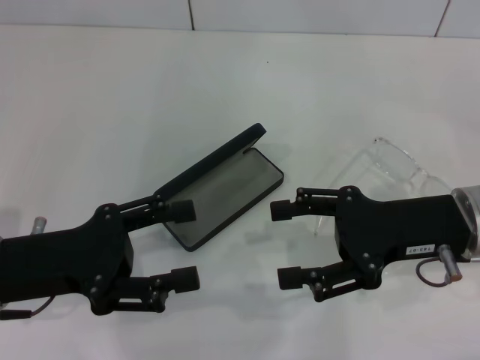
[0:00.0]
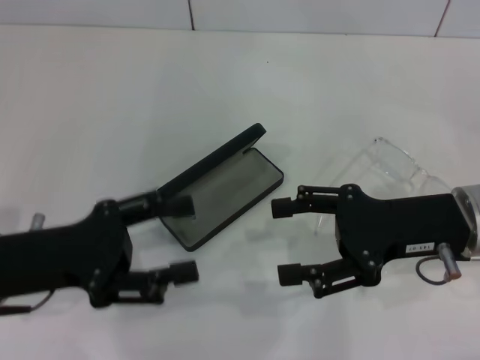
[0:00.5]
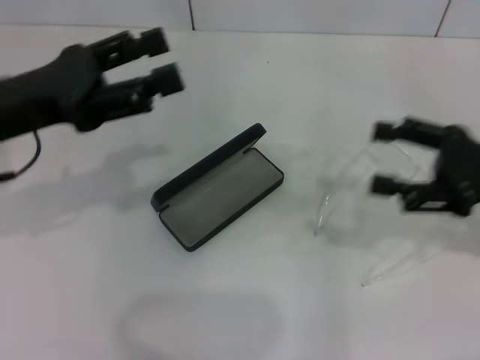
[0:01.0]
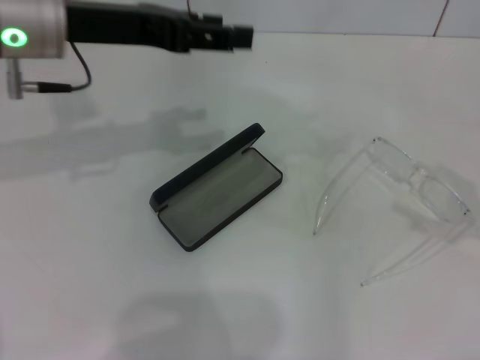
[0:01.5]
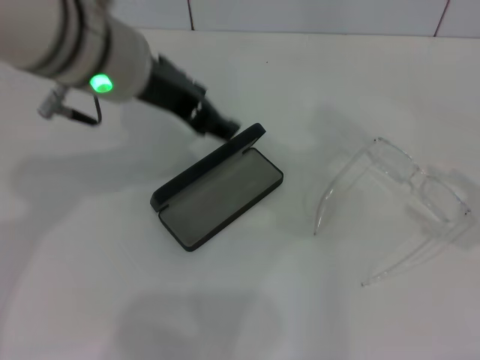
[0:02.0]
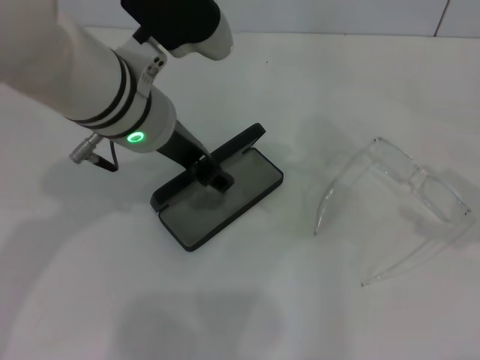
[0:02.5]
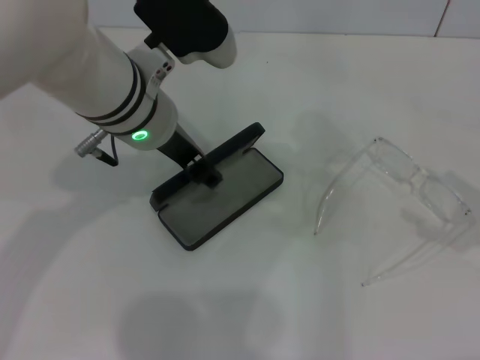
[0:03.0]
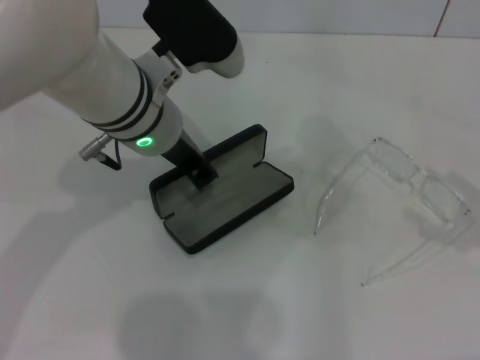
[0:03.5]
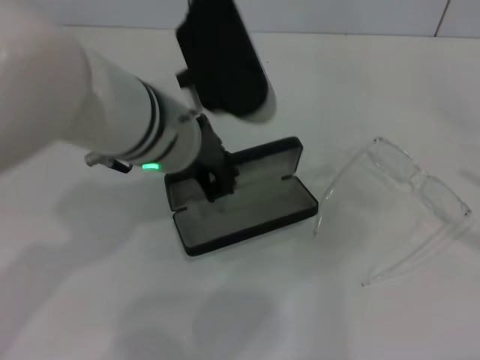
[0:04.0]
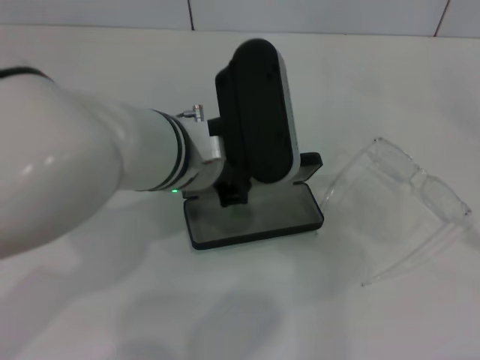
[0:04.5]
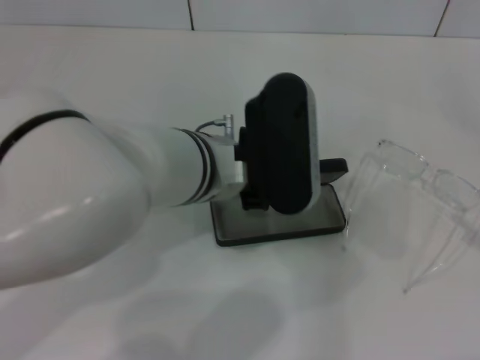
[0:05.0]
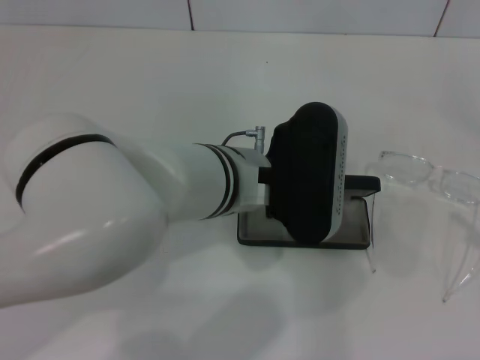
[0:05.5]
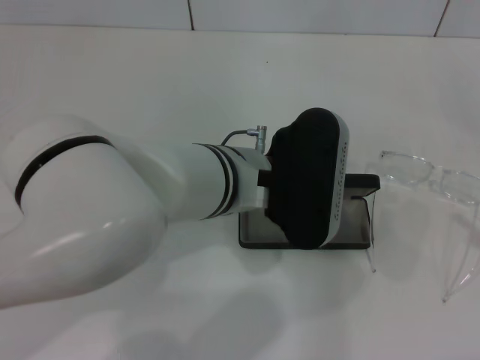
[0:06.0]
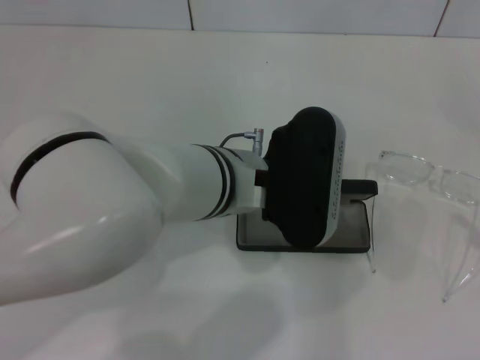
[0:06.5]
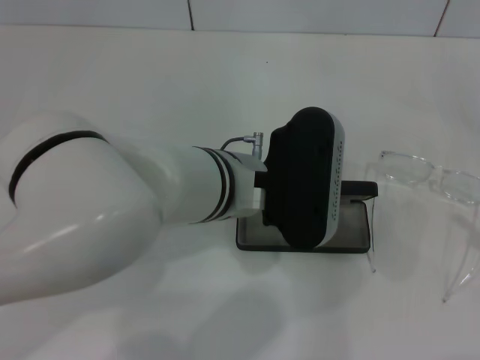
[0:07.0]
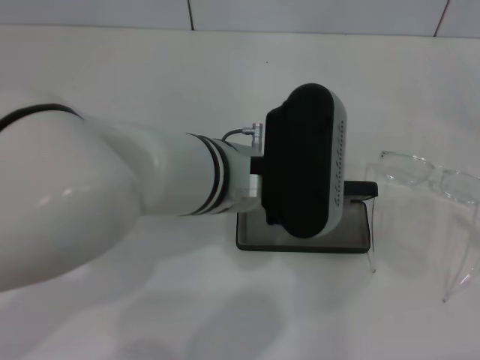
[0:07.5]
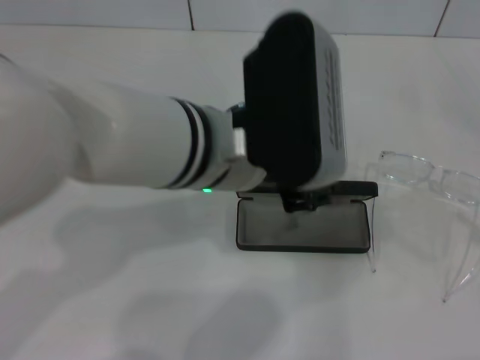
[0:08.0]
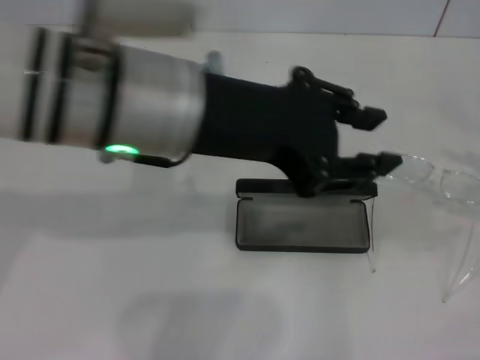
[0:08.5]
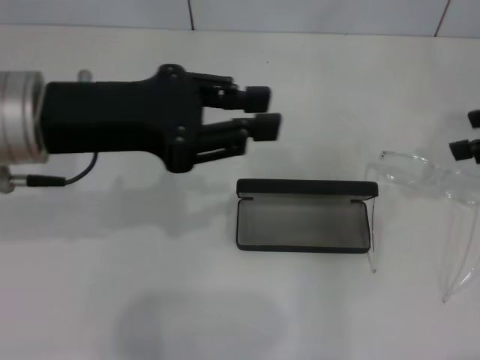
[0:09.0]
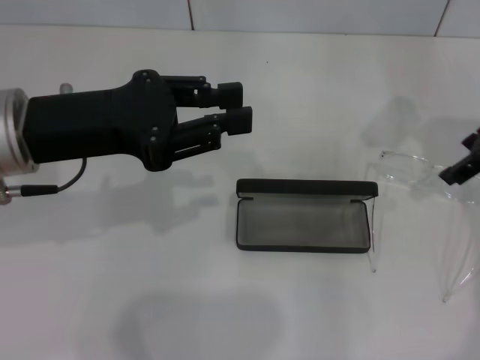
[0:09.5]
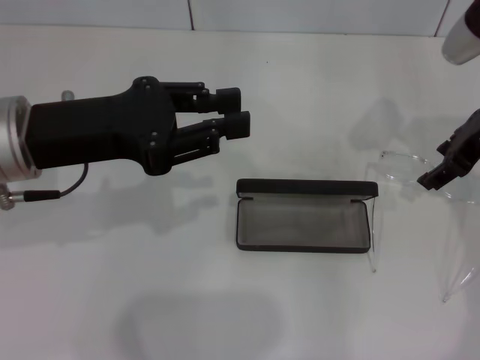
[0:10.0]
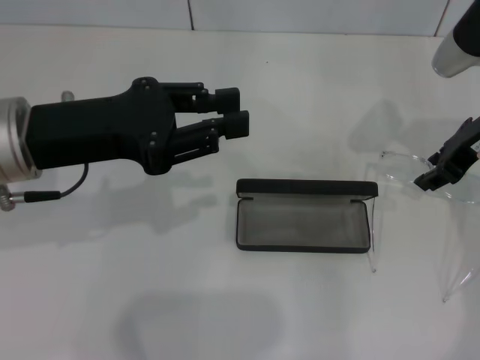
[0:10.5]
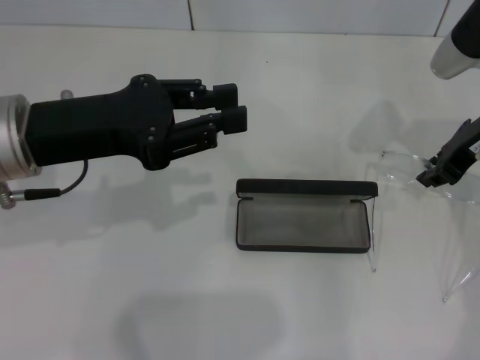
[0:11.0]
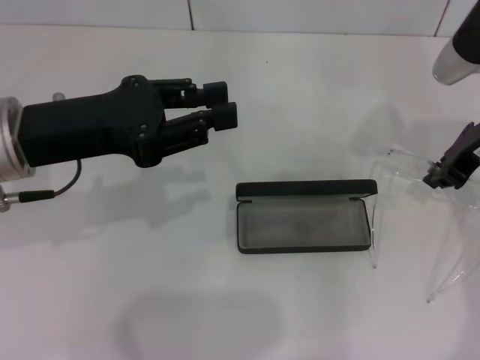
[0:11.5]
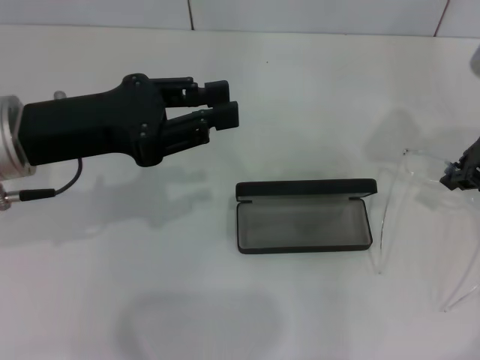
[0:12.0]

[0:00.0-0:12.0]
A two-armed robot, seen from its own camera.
Step, 0:00.0 to 0:03.5: Grab the glasses case with your left hand.
Step, 0:04.0 to 0:07.0: Place the glasses case in the center of the table with your left hand.
Step, 0:08.0 to 0:11.0: Grab the eyeglass frame with your right hand.
0:00.0 to 0:02.0: The left gripper heads upward, to the right and forward, covering some 20 cm. Meanwhile the right gripper shifts roughly 20 cm to the right.
0:02.0 to 0:04.0: The left gripper travels downward by approximately 5 cm, and closes.
0:04.0 to 0:06.0: The left gripper moves some 5 cm.
0:06.0 to 0:08.0: The left gripper heads upward, covering some 5 cm.
0:08.0 to 0:10.0: The left gripper is displaced to the left by about 15 cm, while the right gripper is displaced forward and to the left by roughly 30 cm.
0:10.0 to 0:12.0: The right gripper closes up.

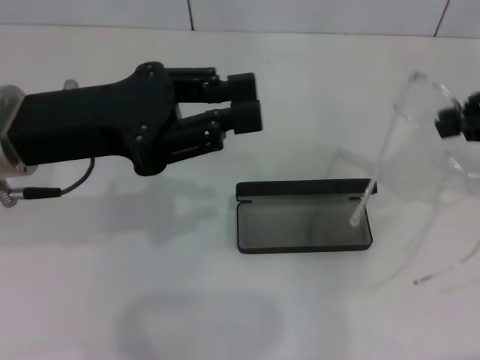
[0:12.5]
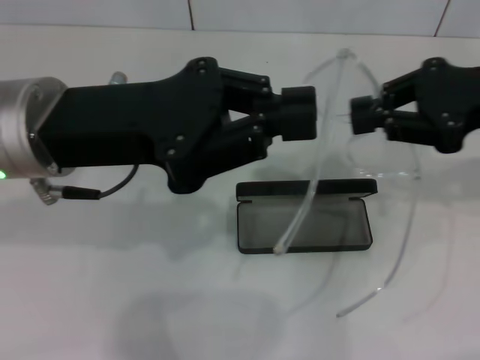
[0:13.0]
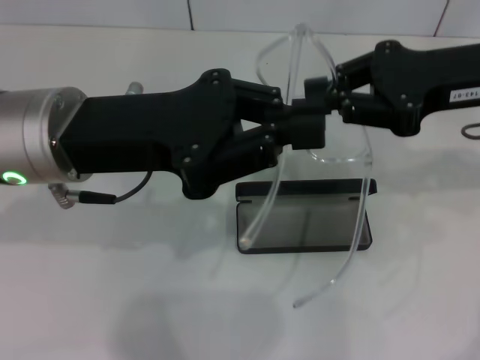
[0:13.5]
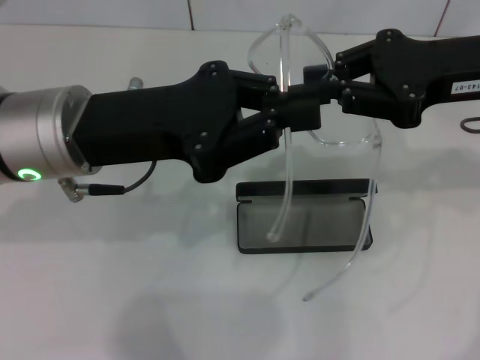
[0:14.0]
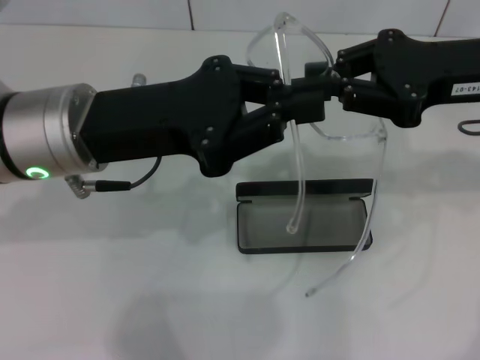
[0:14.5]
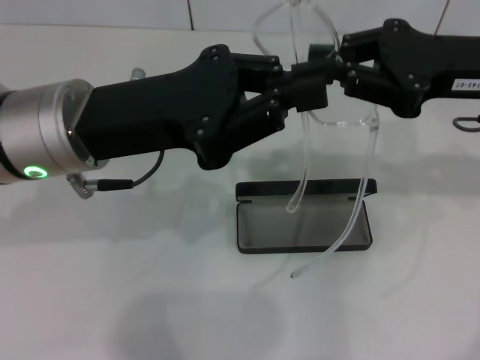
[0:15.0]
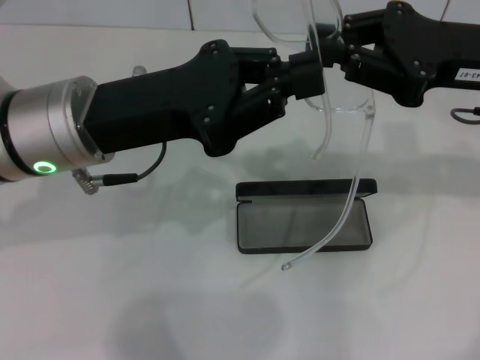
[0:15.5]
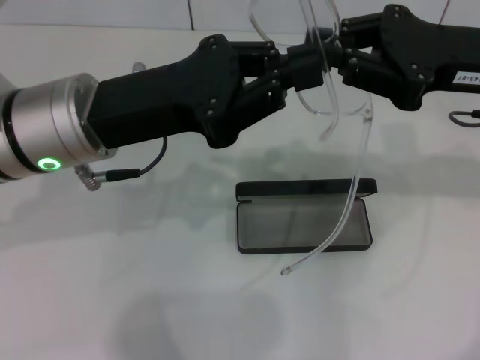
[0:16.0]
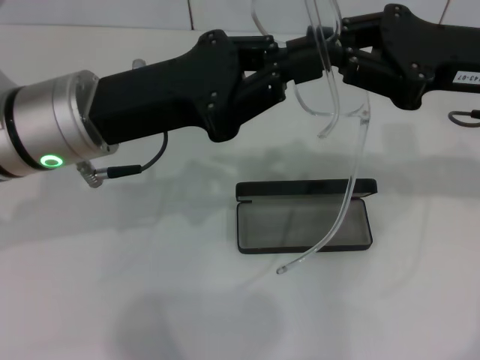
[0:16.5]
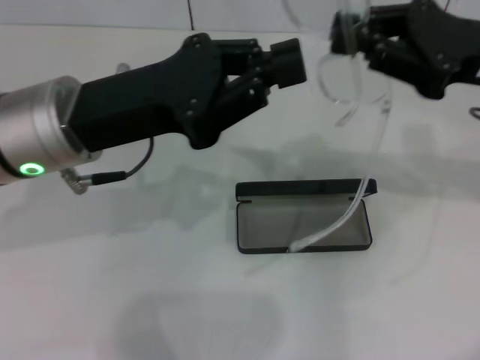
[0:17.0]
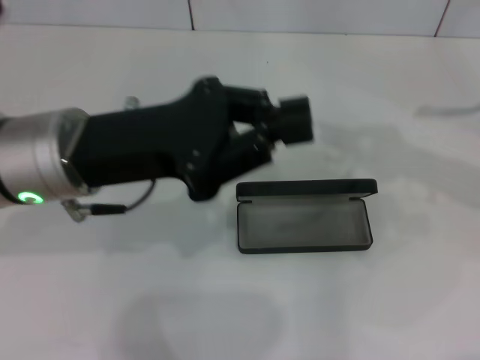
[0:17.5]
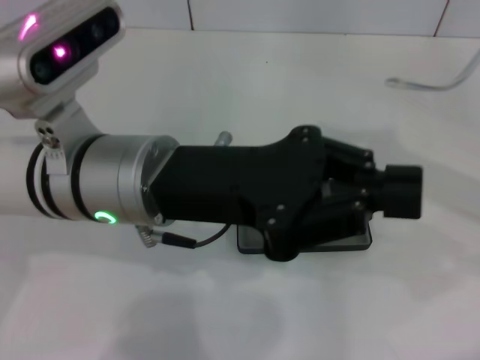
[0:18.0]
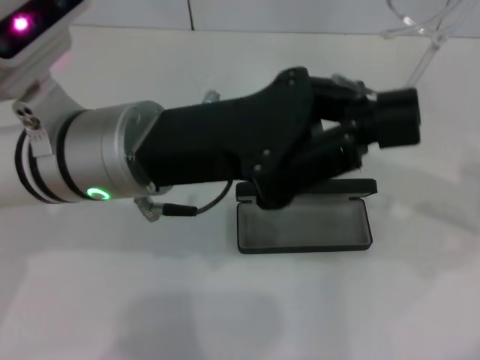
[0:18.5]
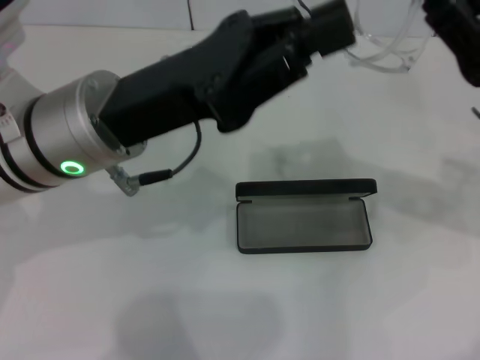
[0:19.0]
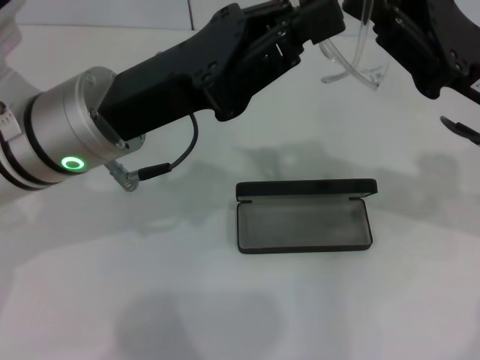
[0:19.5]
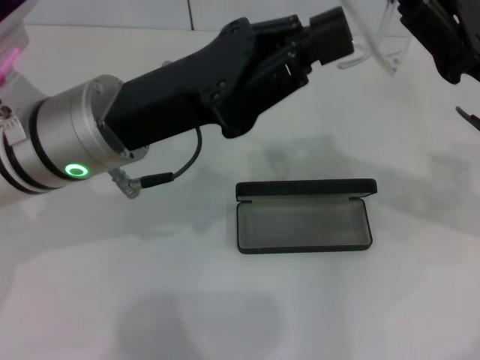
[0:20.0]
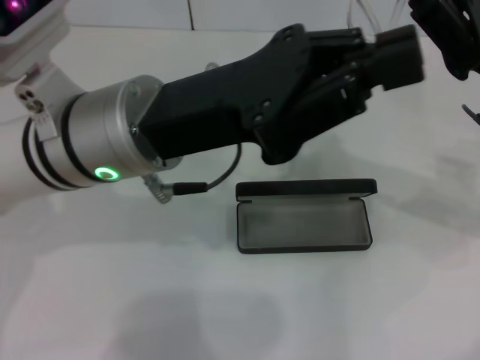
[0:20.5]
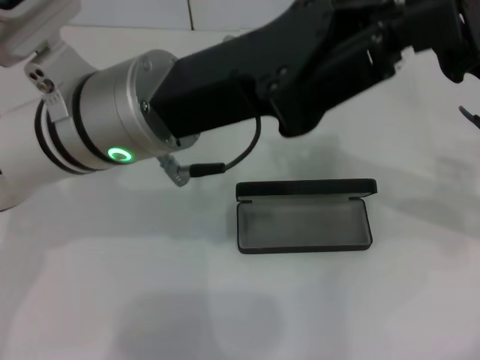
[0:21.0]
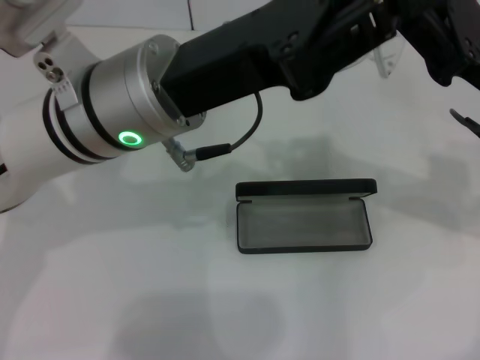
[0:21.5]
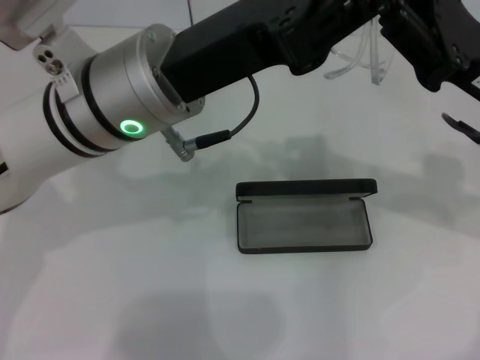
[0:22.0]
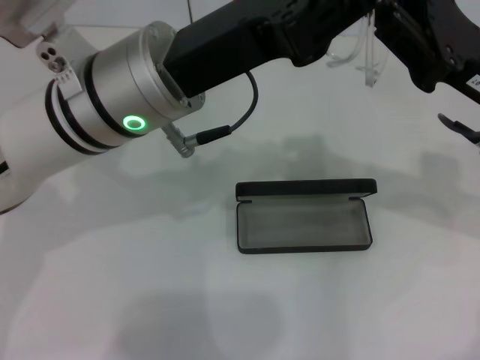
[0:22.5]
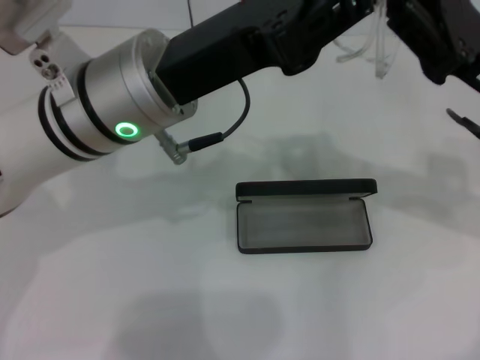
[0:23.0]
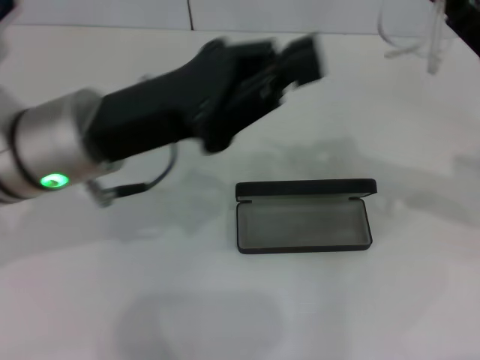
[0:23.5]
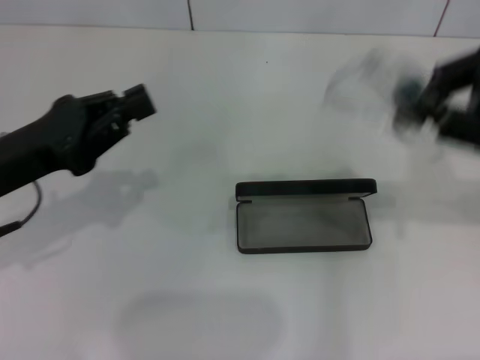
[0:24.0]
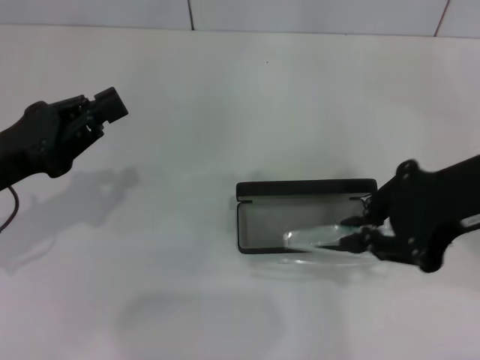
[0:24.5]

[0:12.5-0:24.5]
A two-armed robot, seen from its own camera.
Step, 0:12.5 to 0:22.5: Fold the frame with your left hand.
0:12.5 to 0:14.5: The right gripper moves to the left, some 10 cm.
0:16.5 to 0:18.5: The left gripper moves approximately 5 cm. Meanwhile the right gripper travels to the right and back again, roughly 10 cm each way.
0:22.5 to 0:24.5: The left gripper shifts approximately 20 cm to the left and downward. Meanwhile the right gripper heads upward and backward, covering about 10 cm.

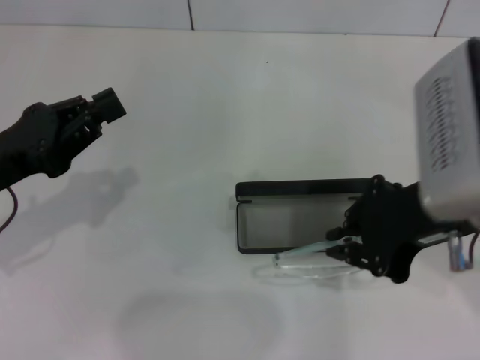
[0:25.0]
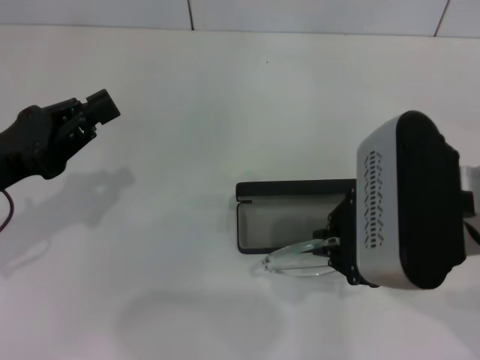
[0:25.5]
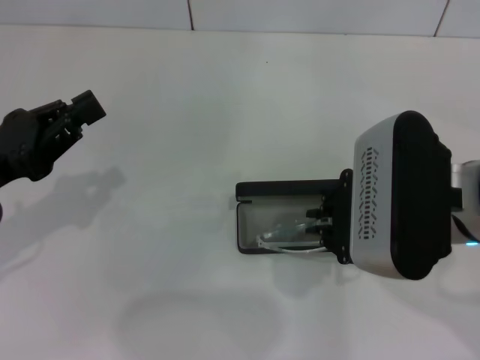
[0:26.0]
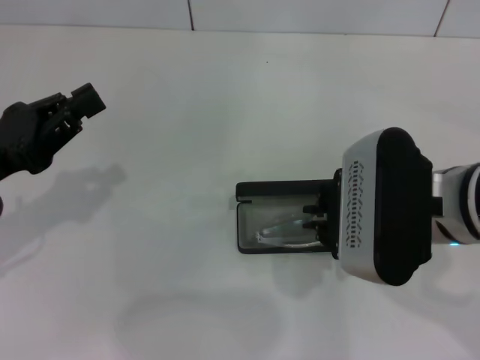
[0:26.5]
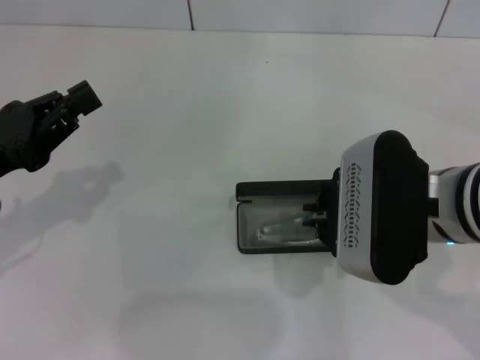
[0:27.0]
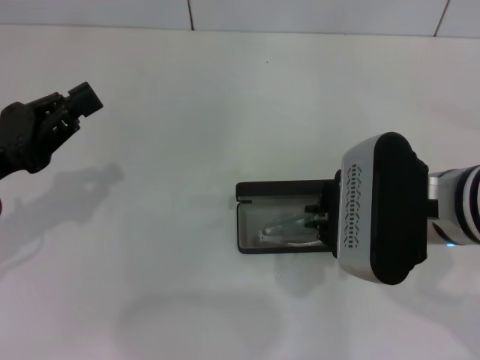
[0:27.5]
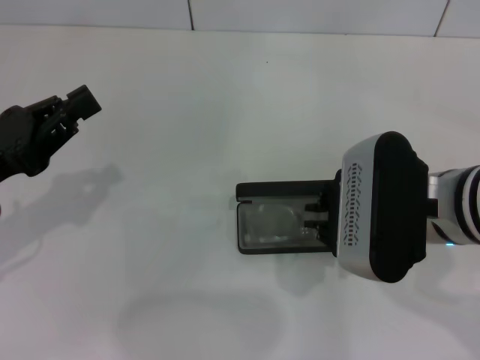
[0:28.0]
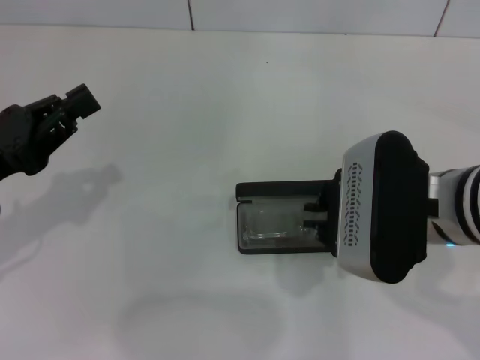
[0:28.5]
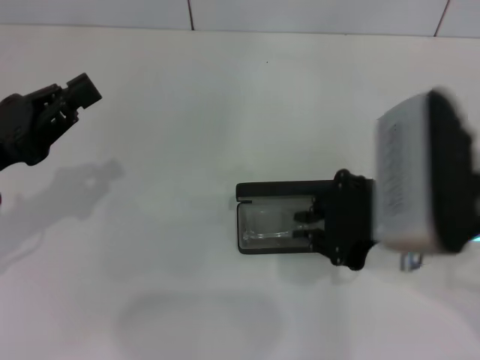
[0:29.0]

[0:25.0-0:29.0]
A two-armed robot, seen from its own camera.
Step, 0:25.0 to 0:28.5: Put the glasses into the case with your right hand.
0:25.0 to 0:27.0: The right gripper goes approximately 5 cm downward.
0:27.0 to 0:29.0: The grippers stay close to where they were, moving slightly.
